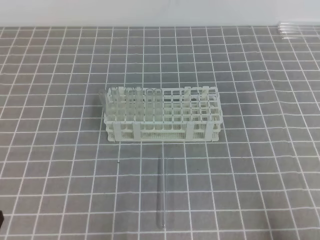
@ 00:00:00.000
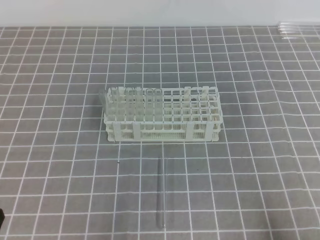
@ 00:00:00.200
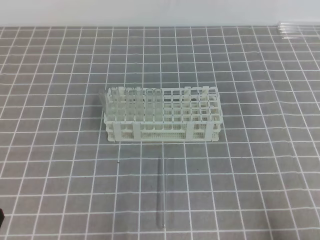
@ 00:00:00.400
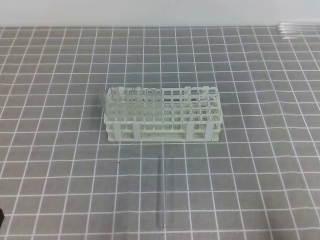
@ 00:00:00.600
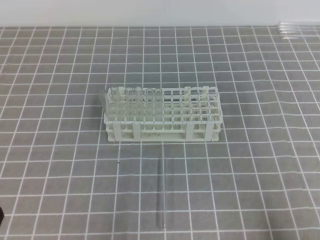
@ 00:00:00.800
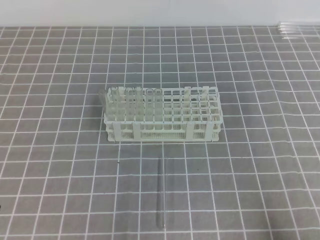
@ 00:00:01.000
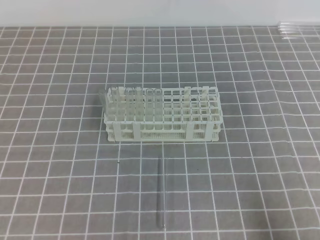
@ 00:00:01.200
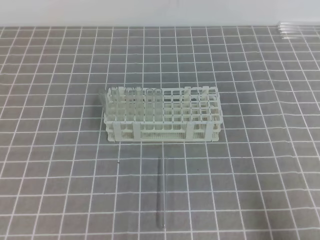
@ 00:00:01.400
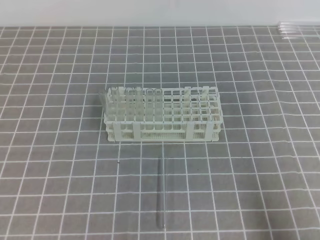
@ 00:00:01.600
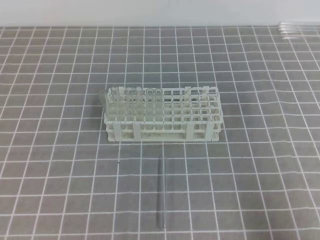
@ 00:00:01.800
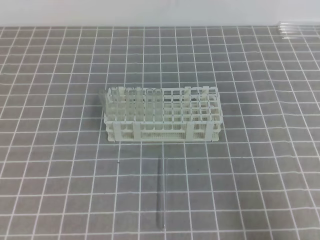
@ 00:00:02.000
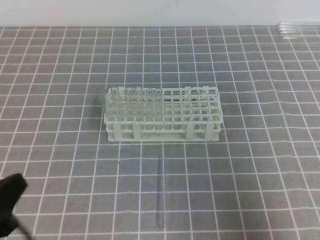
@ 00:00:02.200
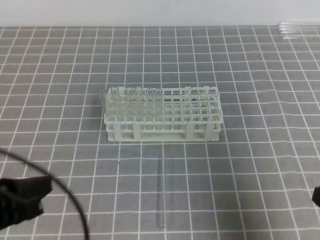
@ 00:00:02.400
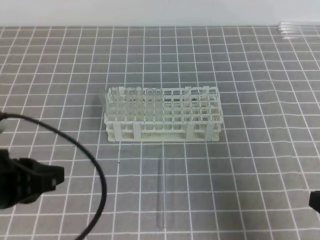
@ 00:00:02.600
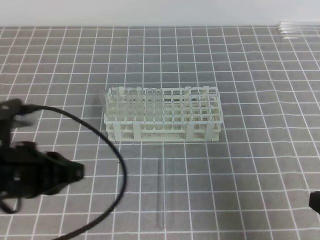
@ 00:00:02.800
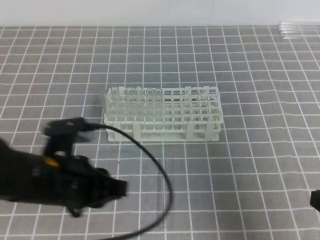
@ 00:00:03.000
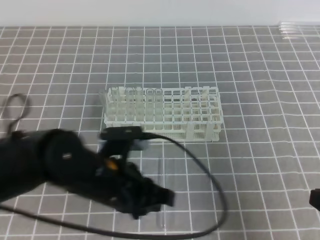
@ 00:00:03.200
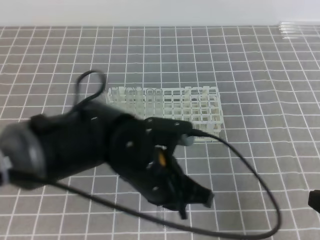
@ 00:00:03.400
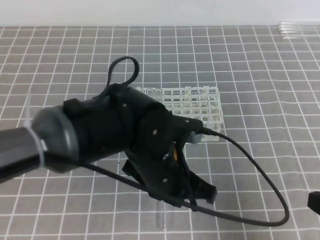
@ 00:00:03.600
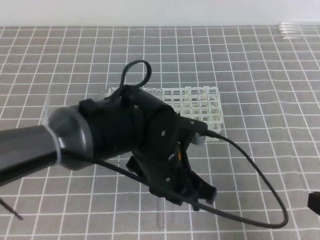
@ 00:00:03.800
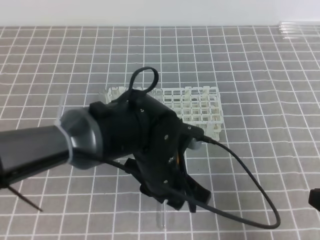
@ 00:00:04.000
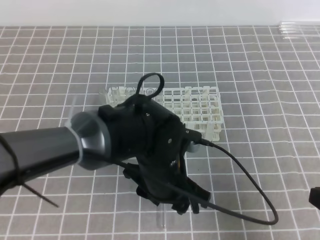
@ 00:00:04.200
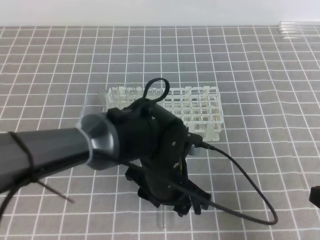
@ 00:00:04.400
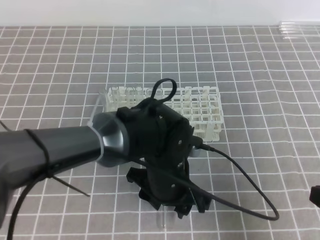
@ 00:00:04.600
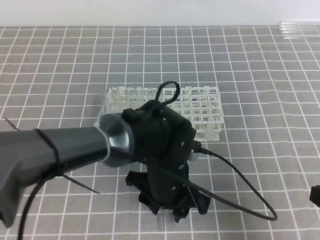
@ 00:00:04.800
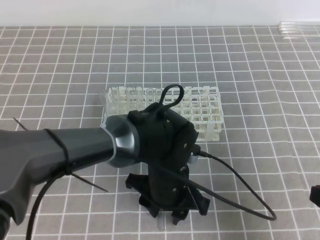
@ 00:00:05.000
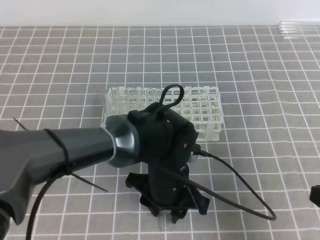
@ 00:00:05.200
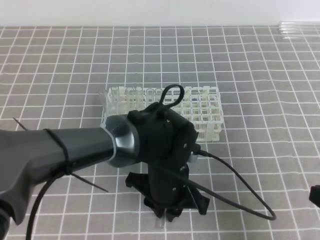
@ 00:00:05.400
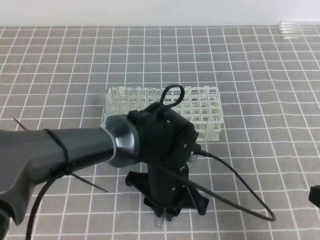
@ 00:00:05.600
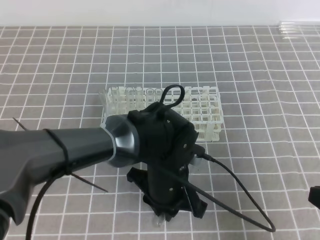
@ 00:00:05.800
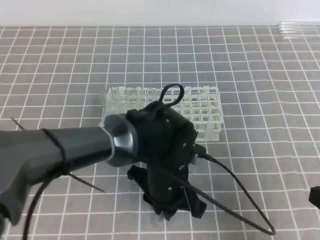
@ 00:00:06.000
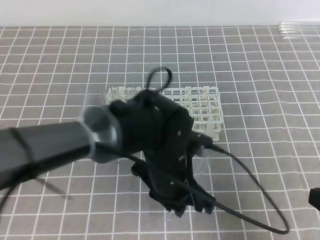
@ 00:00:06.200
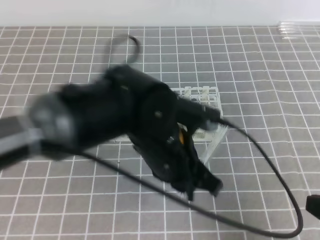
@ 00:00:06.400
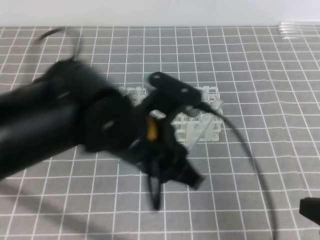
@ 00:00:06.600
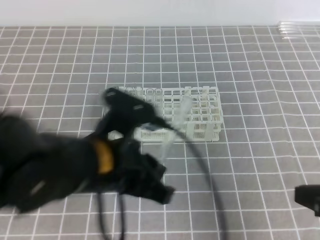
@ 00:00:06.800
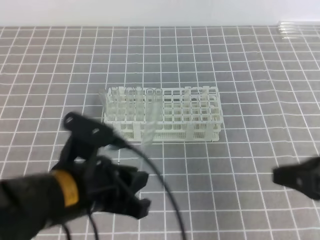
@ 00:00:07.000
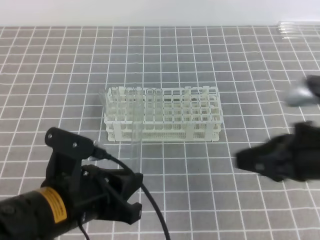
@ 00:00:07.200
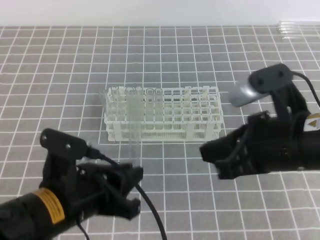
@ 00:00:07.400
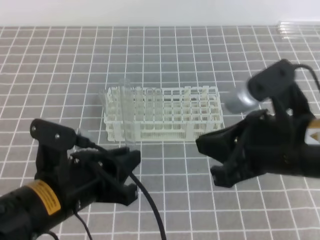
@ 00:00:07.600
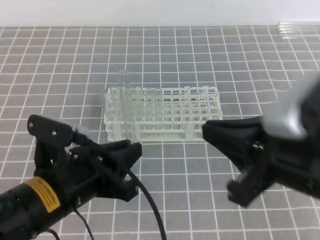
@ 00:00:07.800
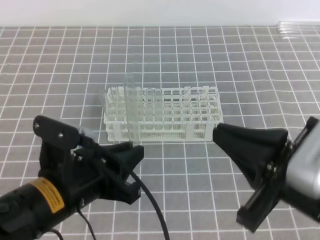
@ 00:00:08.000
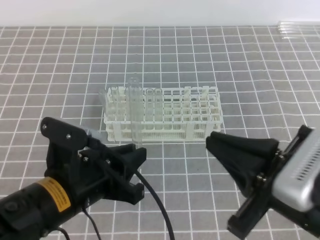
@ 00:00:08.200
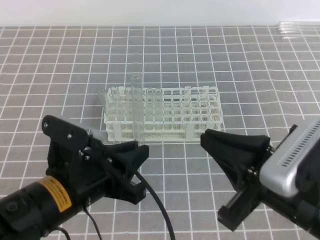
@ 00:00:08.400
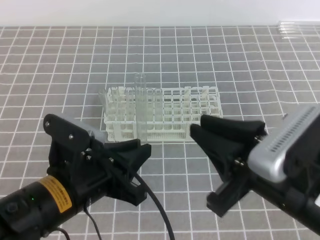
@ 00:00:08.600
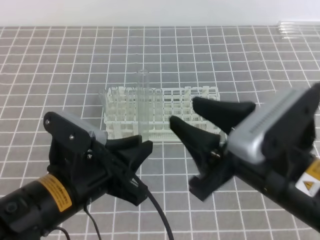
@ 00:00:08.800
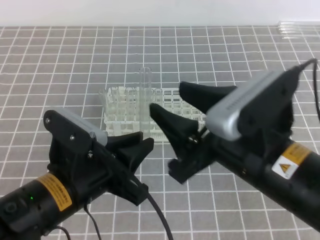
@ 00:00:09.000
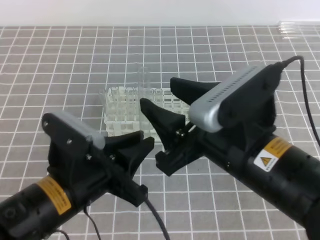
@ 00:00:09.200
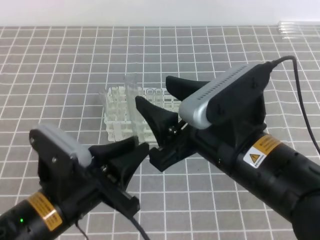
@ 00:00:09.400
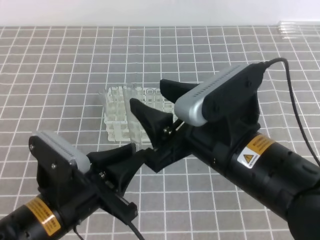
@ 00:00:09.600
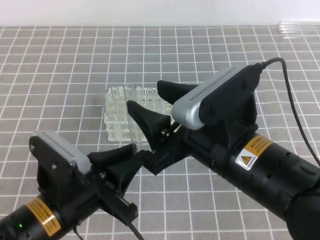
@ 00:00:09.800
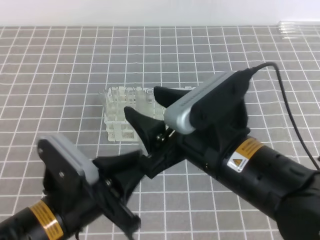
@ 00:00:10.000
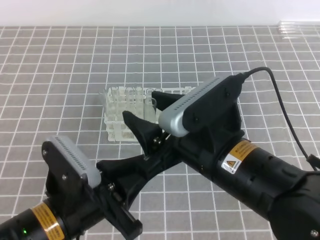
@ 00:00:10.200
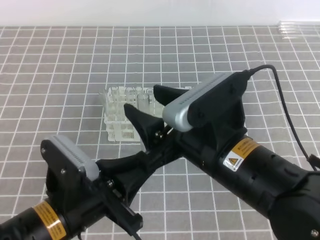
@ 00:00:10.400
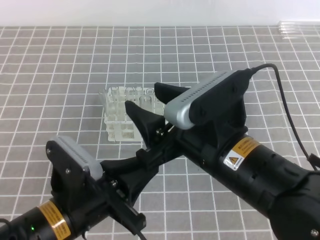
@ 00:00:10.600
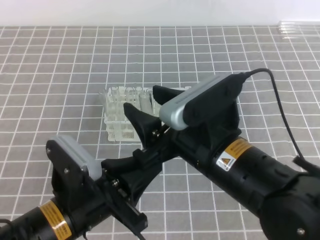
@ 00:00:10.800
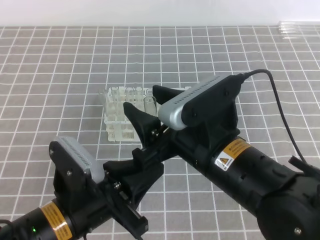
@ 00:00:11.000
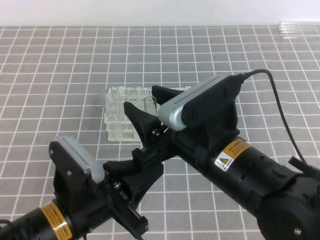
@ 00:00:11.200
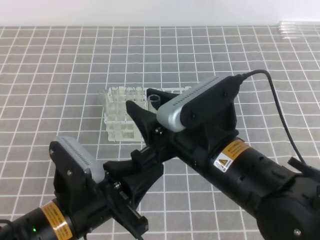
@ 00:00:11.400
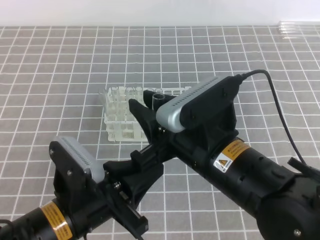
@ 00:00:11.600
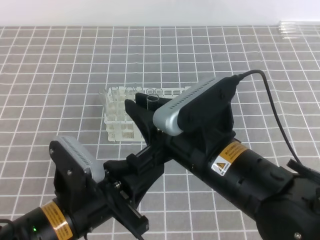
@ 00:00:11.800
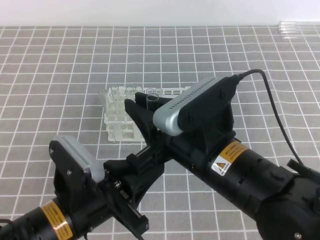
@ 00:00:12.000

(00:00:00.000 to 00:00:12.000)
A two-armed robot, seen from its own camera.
00:00:01.600 - 00:00:03.000: The left gripper is displaced forward and to the right by about 20 cm. The right gripper shifts approximately 5 cm forward.
00:00:03.000 - 00:00:04.400: The left gripper goes approximately 15 cm to the right, and opens up.
00:00:04.400 - 00:00:06.000: The left gripper closes its fingers.
00:00:06.000 - 00:00:07.600: The left gripper travels to the left, backward and upward by about 15 cm; the right gripper goes approximately 15 cm to the left, upward and forward.
00:00:07.600 - 00:00:09.000: The right gripper opens.
00:00:09.000 - 00:00:10.400: The right gripper moves approximately 5 cm.
00:00:10.400 - 00:00:12.000: The right gripper closes up.

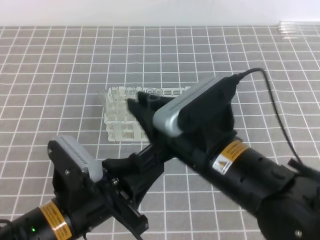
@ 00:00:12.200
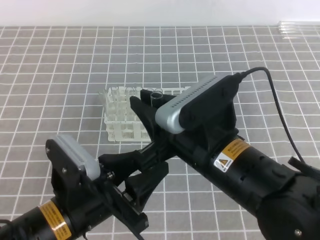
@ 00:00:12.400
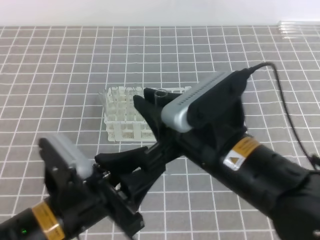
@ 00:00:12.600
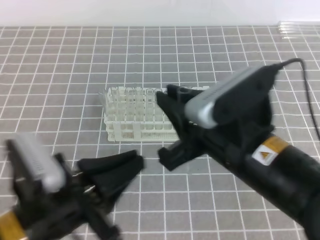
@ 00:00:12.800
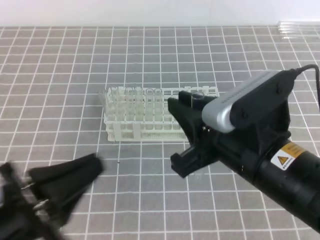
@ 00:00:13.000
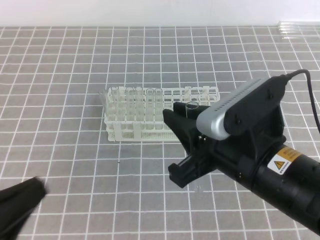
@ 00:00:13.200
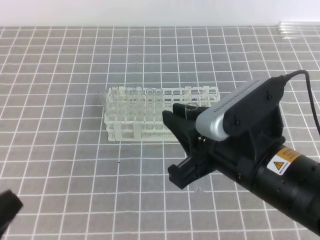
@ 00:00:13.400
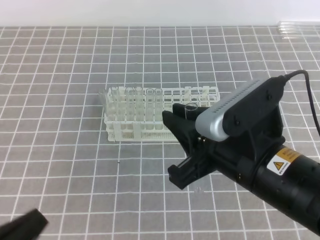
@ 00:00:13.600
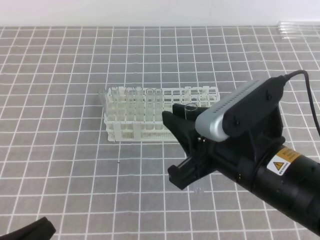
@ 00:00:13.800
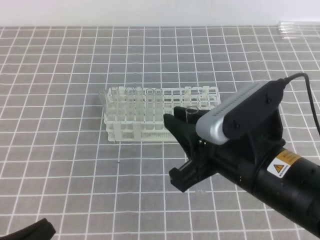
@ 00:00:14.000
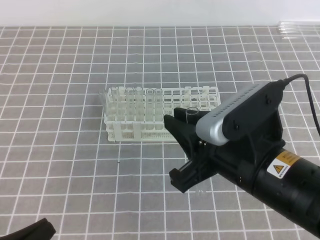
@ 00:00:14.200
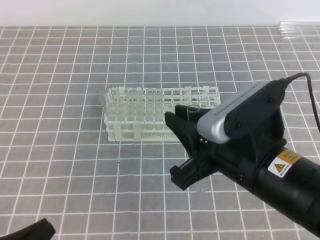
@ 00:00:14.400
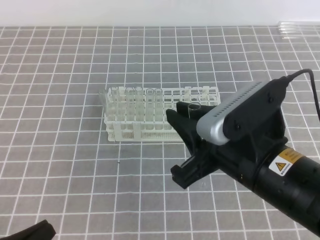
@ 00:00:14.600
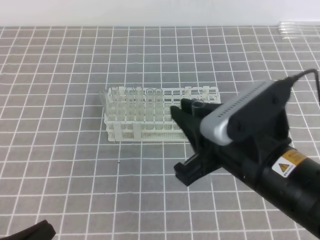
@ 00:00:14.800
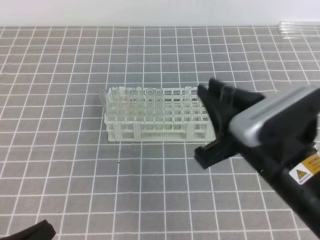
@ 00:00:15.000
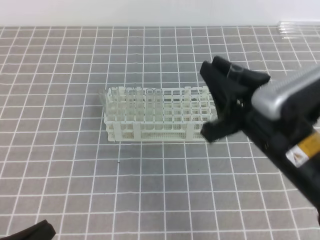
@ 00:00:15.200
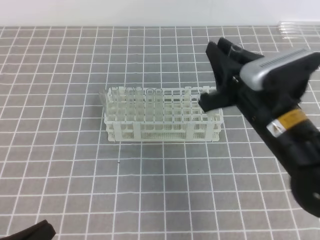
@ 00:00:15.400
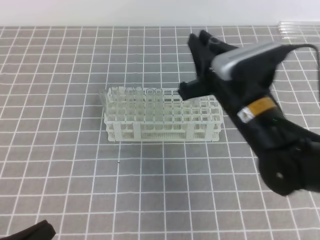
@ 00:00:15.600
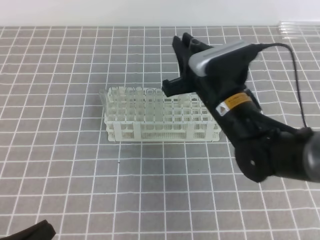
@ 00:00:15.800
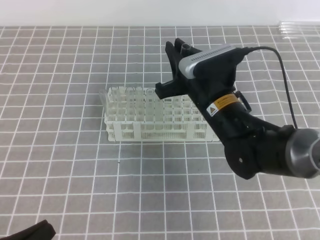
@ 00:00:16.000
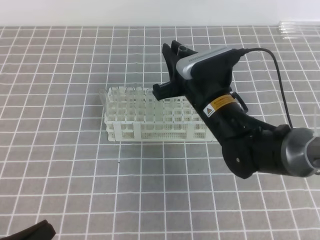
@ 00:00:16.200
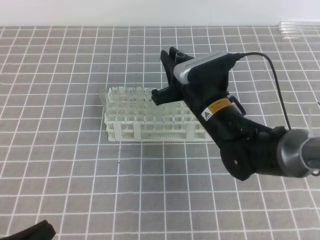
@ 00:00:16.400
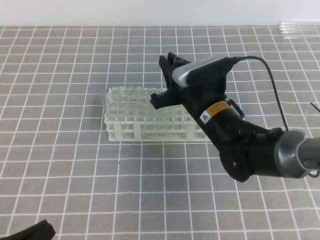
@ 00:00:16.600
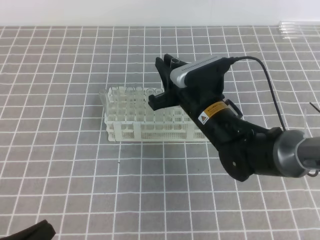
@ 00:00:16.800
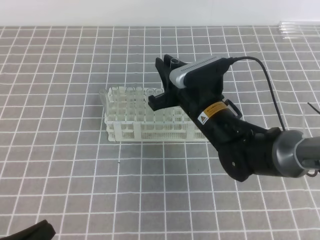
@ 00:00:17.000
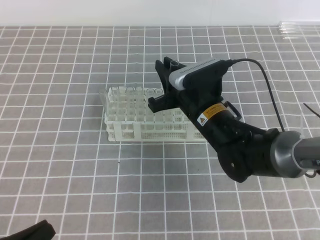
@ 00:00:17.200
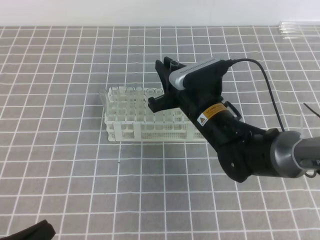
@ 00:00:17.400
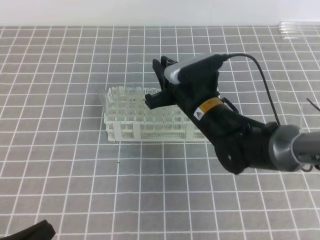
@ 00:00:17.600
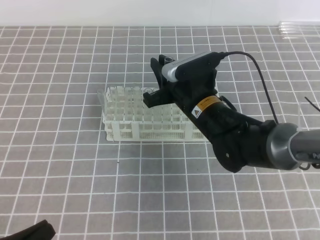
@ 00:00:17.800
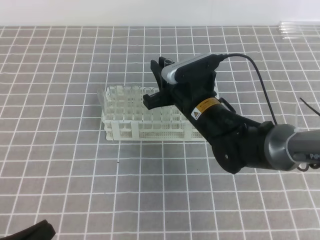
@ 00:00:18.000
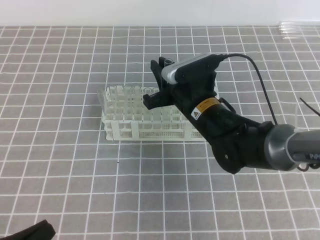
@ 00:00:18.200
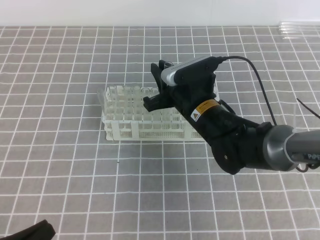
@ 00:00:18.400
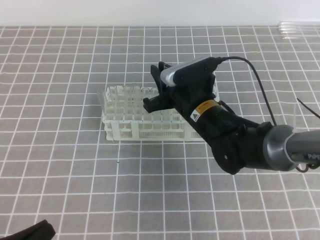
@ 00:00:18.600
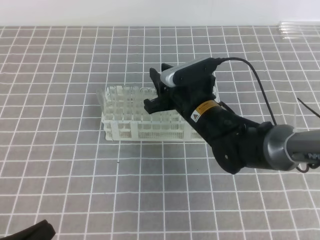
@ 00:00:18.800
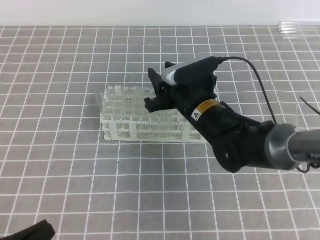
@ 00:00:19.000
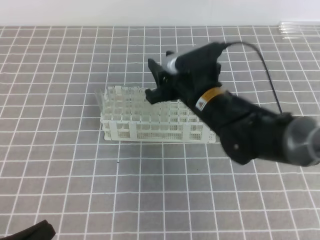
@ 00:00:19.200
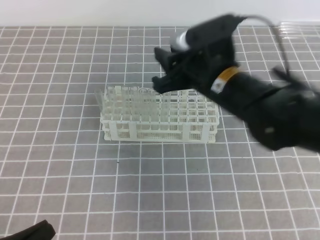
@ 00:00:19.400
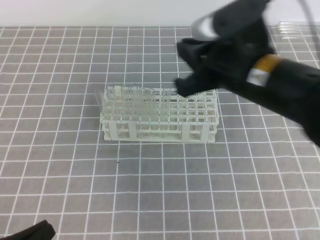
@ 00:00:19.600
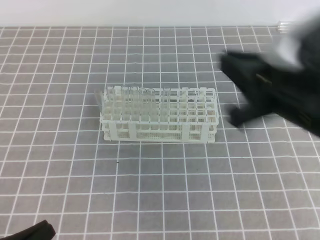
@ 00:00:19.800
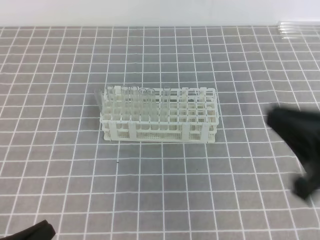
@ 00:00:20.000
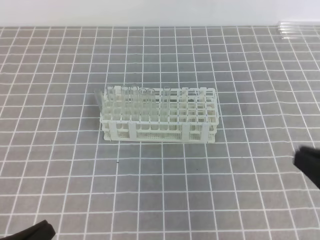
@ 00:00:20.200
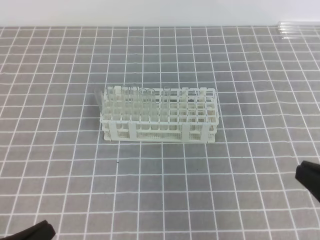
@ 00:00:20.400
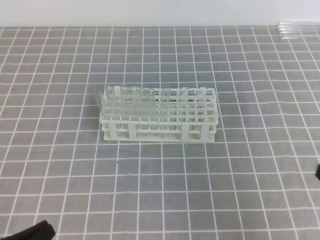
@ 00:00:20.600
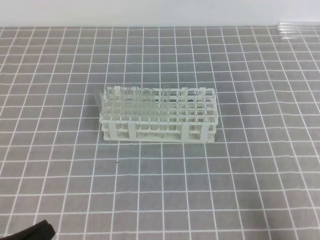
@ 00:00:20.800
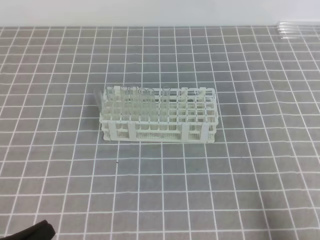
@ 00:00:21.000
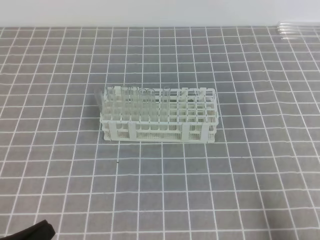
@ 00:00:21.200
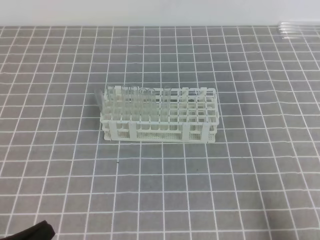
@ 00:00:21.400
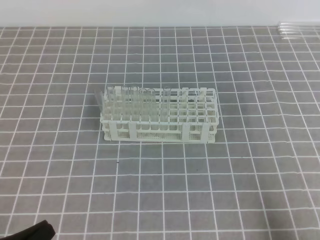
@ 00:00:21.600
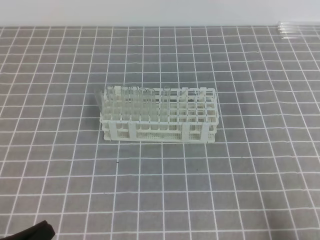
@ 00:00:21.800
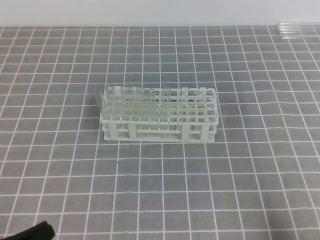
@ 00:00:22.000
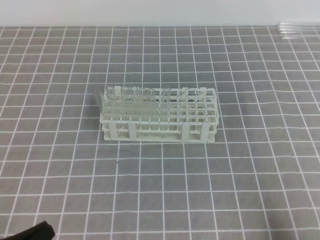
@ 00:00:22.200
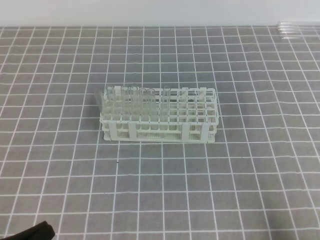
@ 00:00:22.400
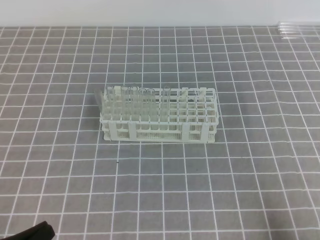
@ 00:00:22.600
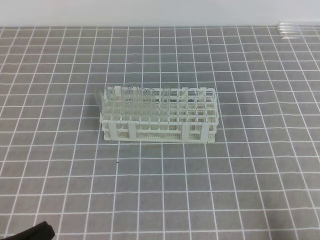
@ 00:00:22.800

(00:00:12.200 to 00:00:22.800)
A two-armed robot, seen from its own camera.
00:00:12.200 - 00:00:13.800: The right gripper changes place by some 5 cm. The left gripper is displaced to the left and backward by some 15 cm, and closes.
00:00:15.200 - 00:00:16.800: The right gripper heads forward, downward and to the left, covering approximately 15 cm.
00:00:16.800 - 00:00:18.200: The grippers make only small movements.
00:00:18.200 - 00:00:19.800: The right gripper moves upward, backward and to the right, approximately 20 cm, and opens and closes again.
00:00:19.800 - 00:00:21.200: The right gripper travels downward, to the right and backward by about 25 cm.
